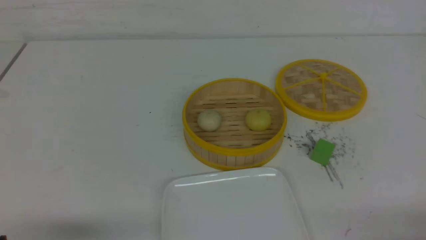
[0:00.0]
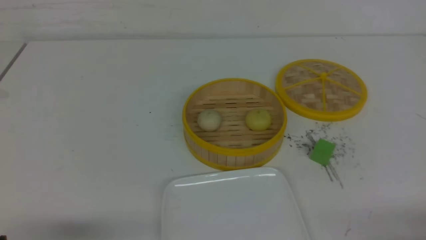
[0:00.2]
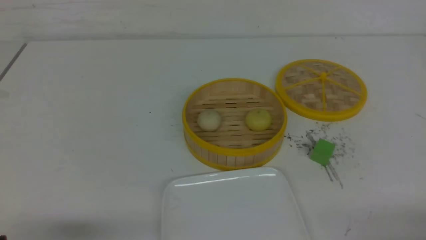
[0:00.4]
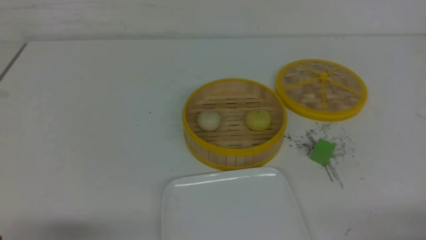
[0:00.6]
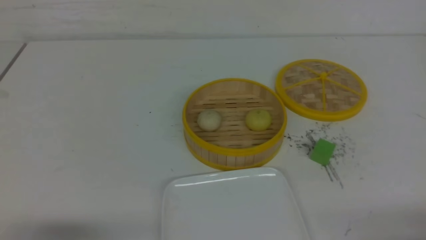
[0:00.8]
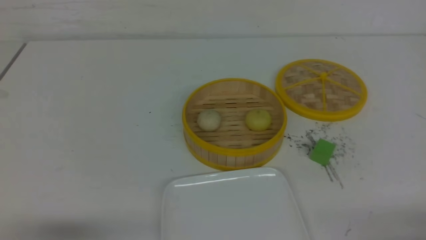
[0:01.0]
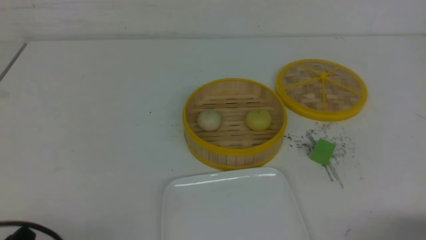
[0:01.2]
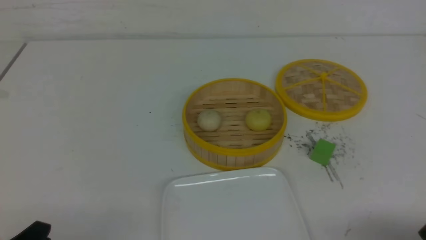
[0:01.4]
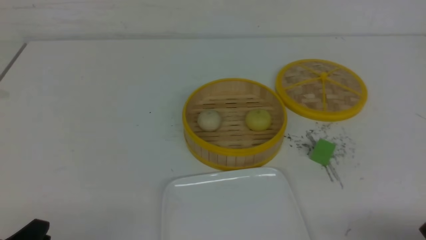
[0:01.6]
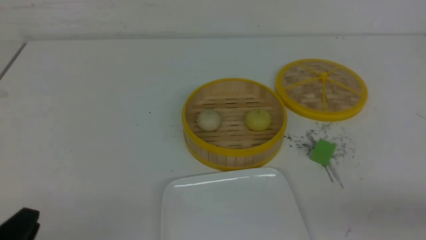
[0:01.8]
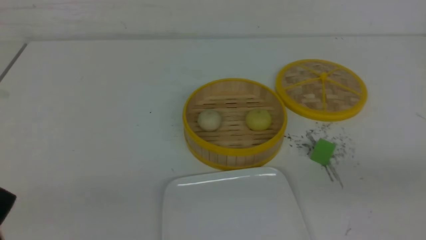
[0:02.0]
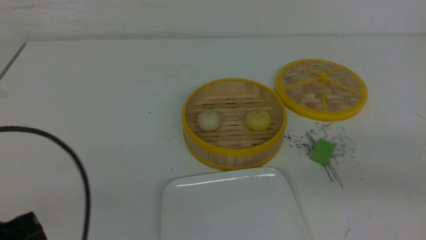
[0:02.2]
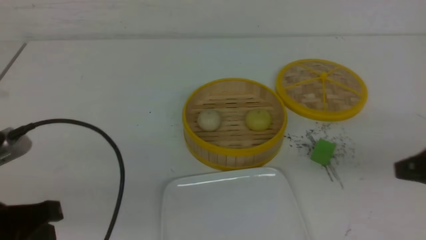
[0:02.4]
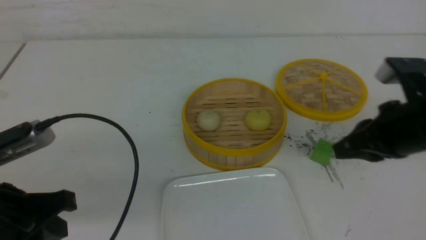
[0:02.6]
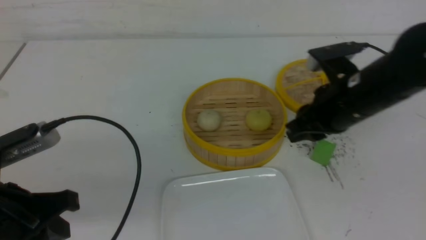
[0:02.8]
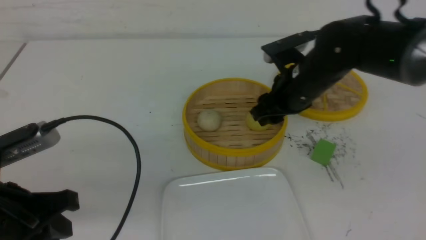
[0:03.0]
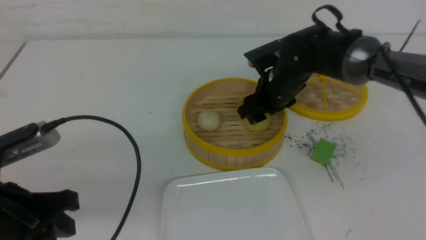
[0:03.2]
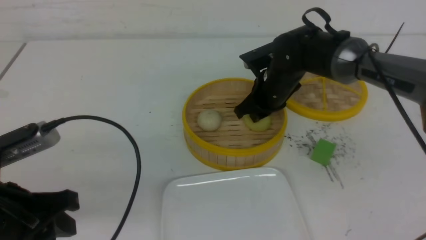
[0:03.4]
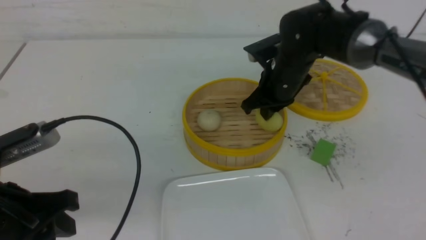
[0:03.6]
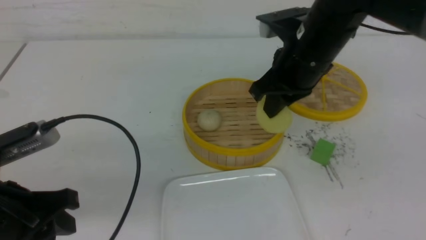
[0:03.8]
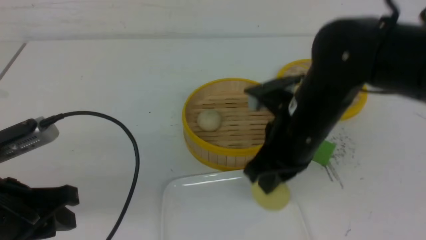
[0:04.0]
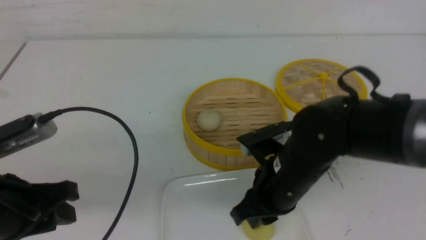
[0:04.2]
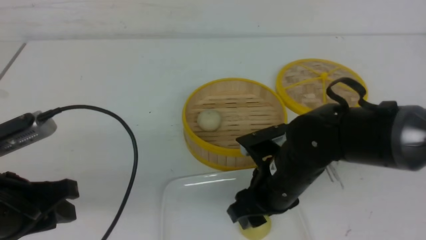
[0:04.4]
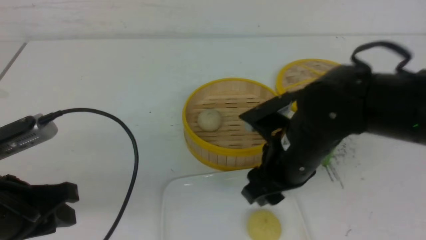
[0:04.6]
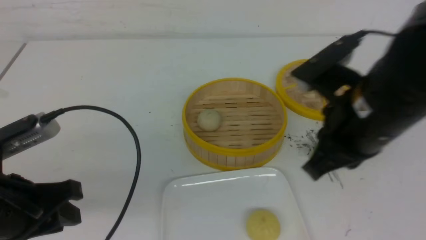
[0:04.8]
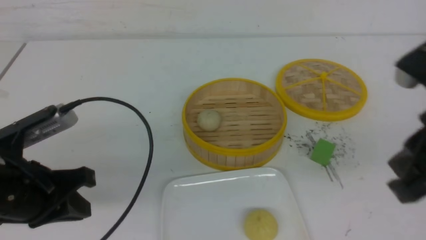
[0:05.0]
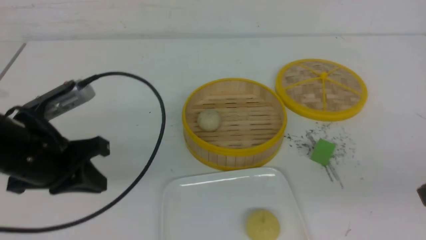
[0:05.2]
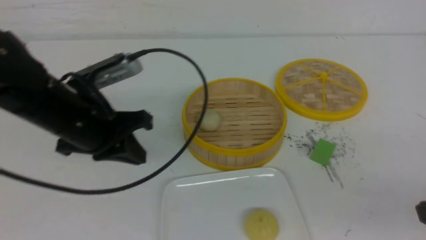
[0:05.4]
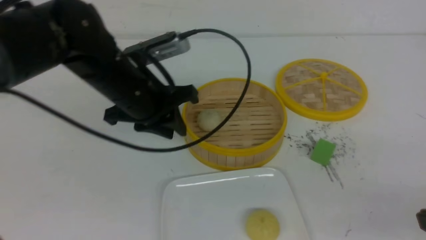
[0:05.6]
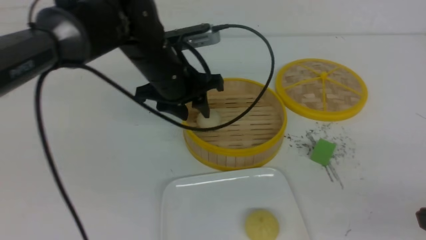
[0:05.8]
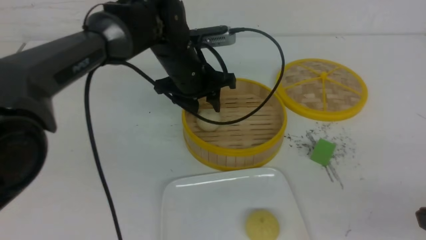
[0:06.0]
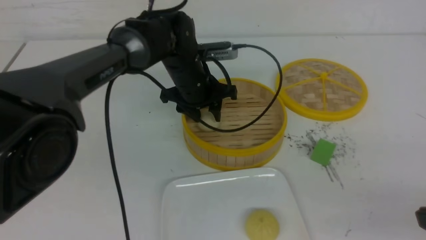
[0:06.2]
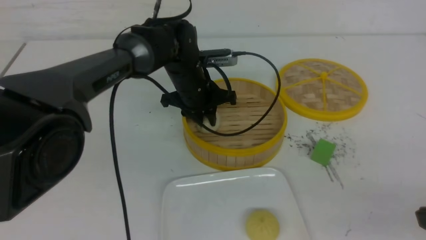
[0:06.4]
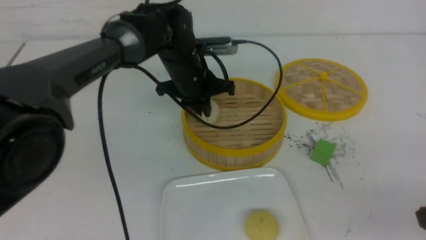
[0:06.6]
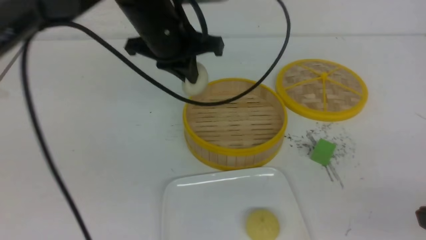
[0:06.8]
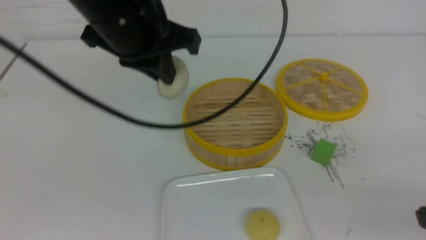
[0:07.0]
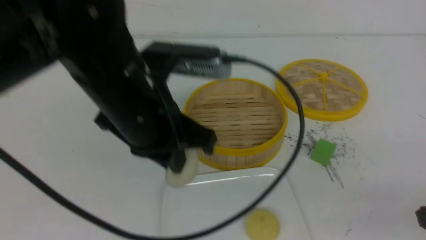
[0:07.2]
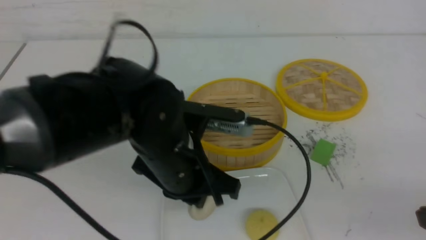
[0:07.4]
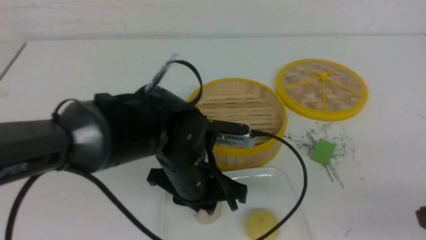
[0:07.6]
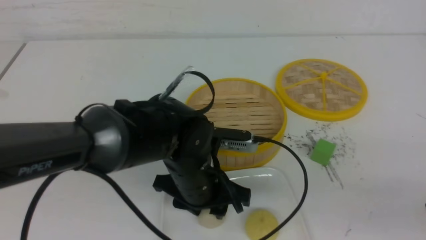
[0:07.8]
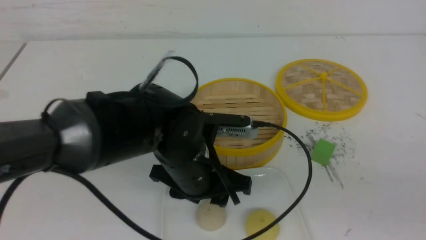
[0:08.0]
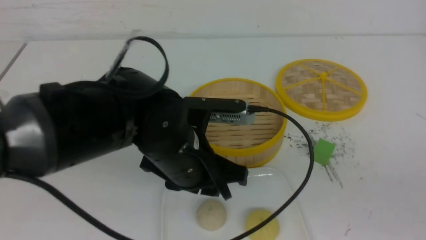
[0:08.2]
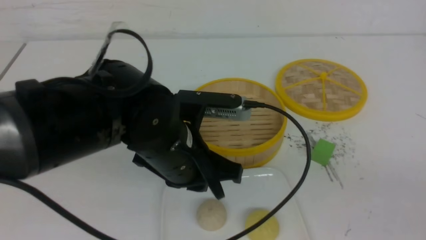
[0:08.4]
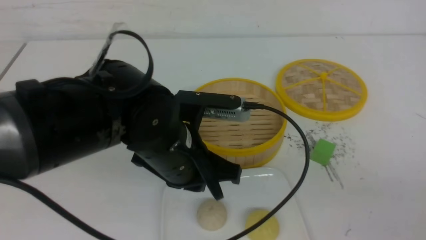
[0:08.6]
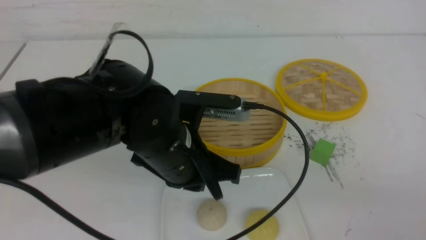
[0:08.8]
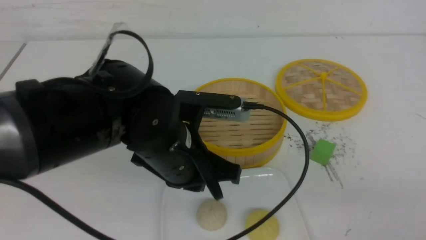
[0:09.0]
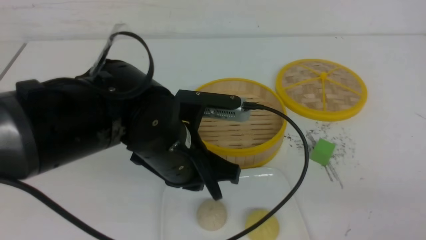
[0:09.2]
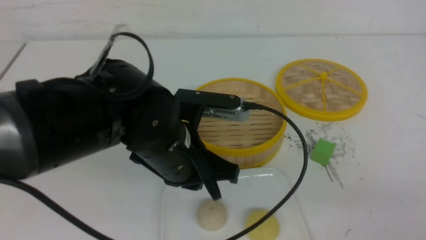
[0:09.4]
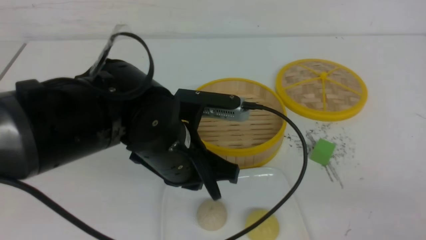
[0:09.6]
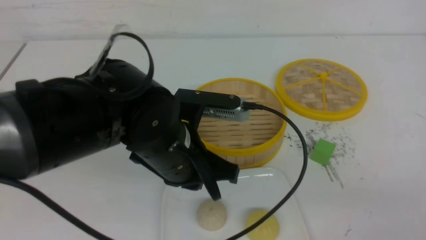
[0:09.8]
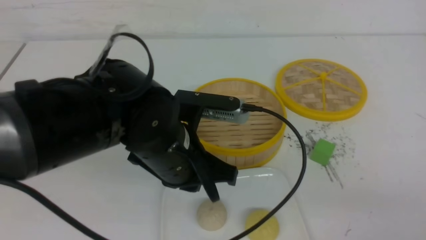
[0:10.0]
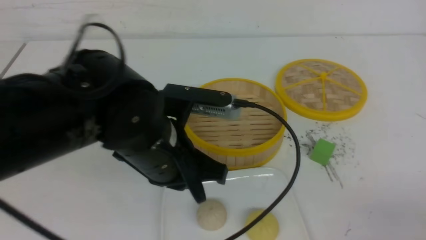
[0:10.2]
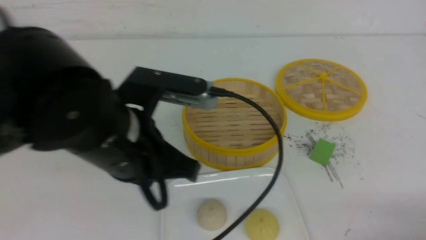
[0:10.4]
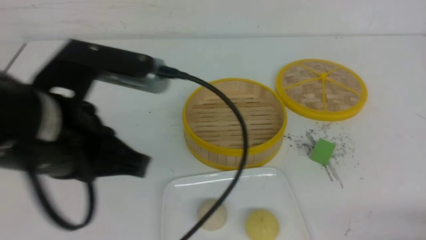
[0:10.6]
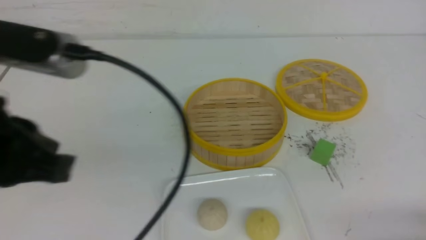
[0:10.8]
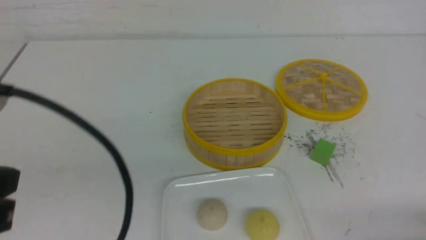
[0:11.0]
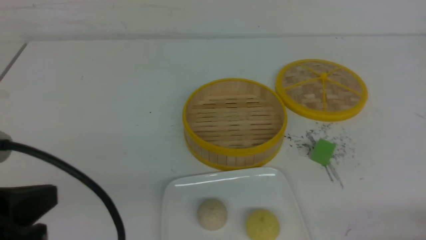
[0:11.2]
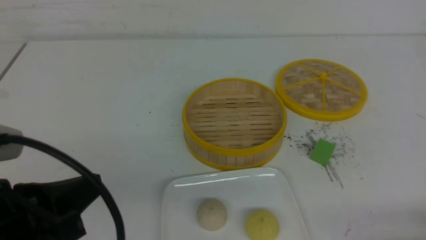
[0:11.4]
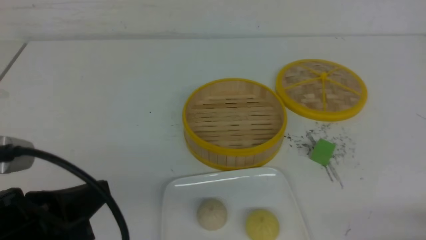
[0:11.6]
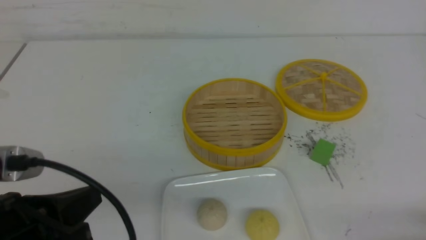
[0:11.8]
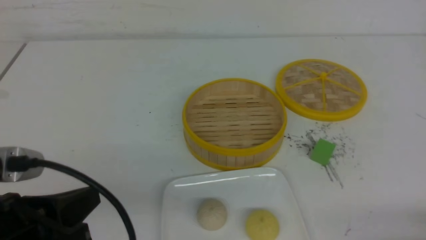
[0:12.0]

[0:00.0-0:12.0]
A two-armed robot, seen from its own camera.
Step, 0:00.0 to 0:03.4: use the right arm to grab the steamed stuffed bun that is closest to it.
Step, 0:03.6 to 0:04.6: use the right arm to put the steamed stuffed bun into the plate.
Step, 0:04.8 to 0:06.4: use the left arm to grab the steamed stuffed bun that is closest to it.
Step, 0:06.6 to 0:07.8: use the left arm to put the steamed stuffed bun into the plate.
0:01.6 to 0:03.0: The right gripper moves forward and to the left, some 35 cm, and opens its fingers. The left gripper heads forward and upward, covering roughly 10 cm, and closes, then opens again.
0:03.0 to 0:04.4: The right gripper is displaced backward by about 15 cm, and closes, then reopens.
0:04.4 to 0:06.0: The right gripper travels to the right and backward by about 25 cm, and closes up. The left gripper shifts about 30 cm forward and to the right, and closes and opens again.
0:06.0 to 0:07.6: The left gripper shifts about 15 cm backward, and closes its fingers.
0:07.6 to 0:09.0: The left gripper changes place by approximately 5 cm, and closes.
0:09.0 to 0:10.4: The left gripper heads upward and to the left, covering approximately 10 cm; the right gripper goes roughly 10 cm downward.
0:10.4 to 0:12.0: The left gripper goes about 15 cm to the left, backward and downward.

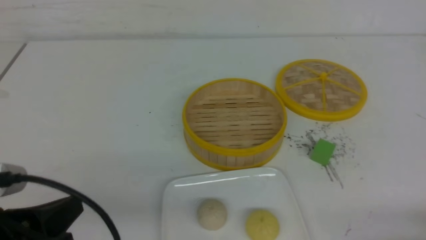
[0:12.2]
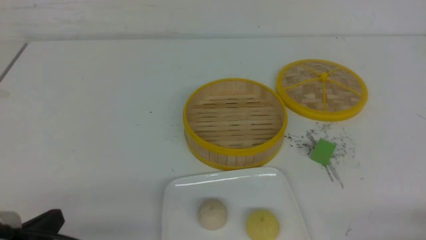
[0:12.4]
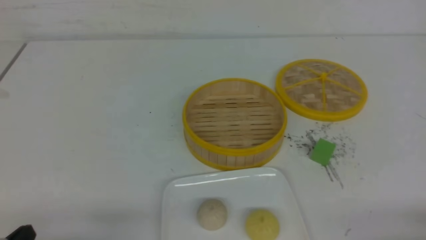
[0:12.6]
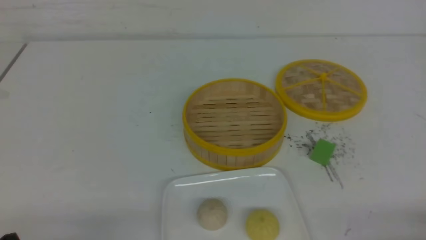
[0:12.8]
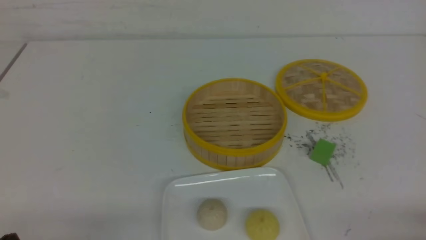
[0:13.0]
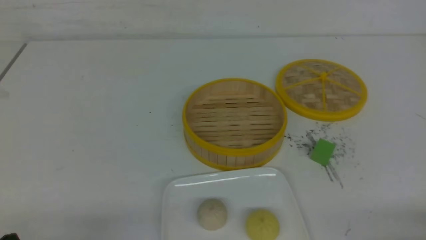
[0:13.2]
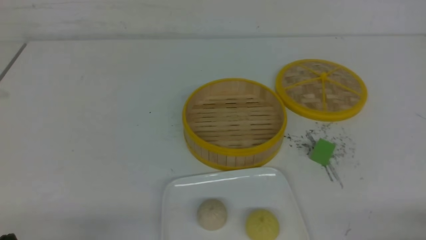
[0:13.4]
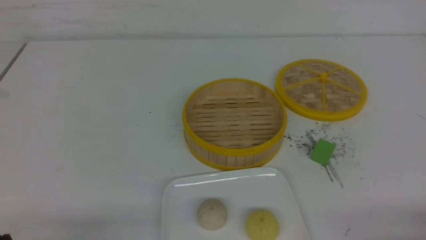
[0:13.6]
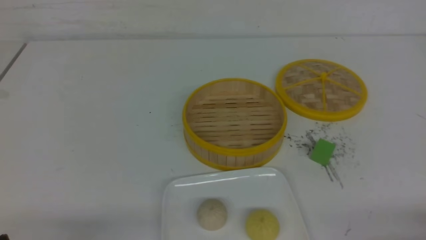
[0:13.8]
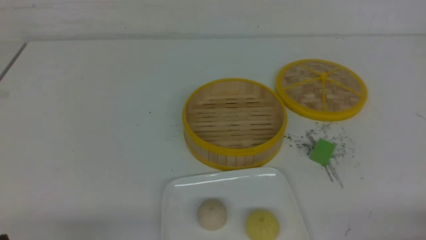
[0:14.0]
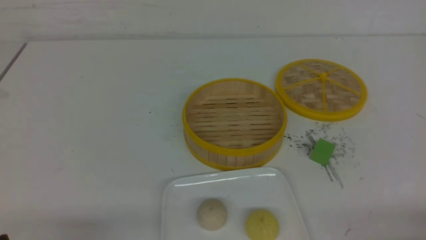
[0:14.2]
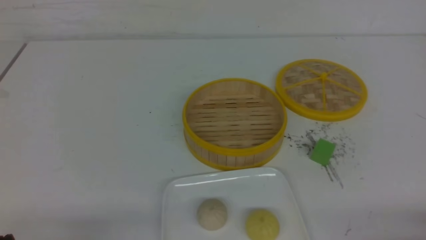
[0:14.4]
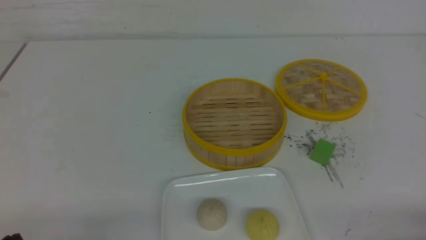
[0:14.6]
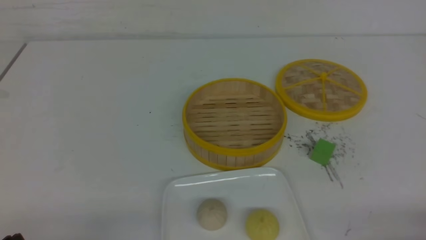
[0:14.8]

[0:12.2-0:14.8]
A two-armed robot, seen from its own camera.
0:12.2 to 0:13.4: The left gripper moves downward, approximately 10 cm.

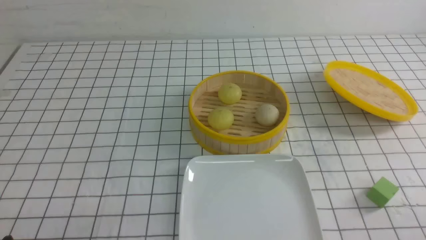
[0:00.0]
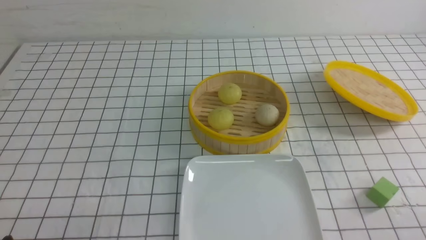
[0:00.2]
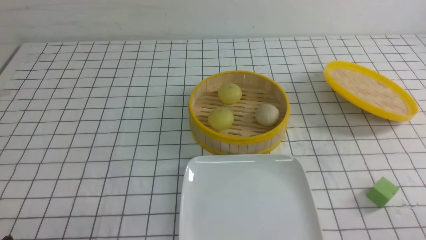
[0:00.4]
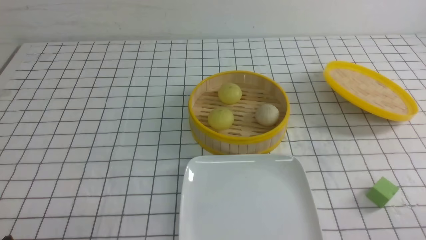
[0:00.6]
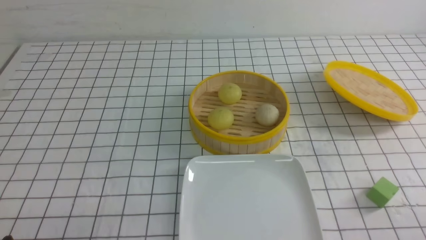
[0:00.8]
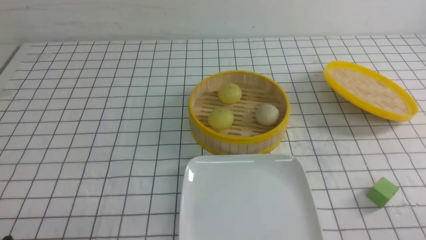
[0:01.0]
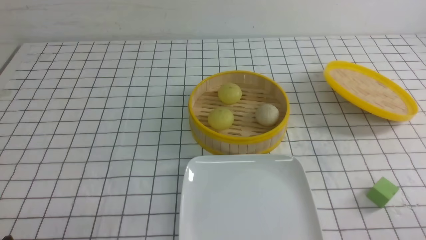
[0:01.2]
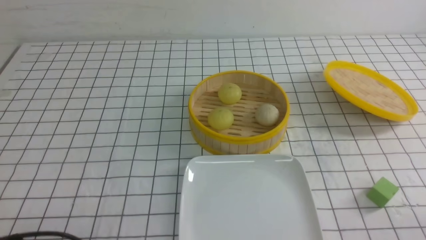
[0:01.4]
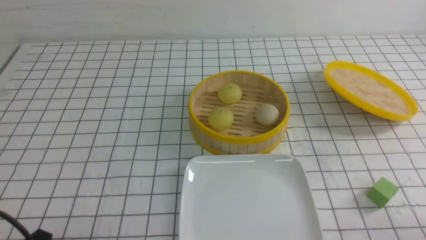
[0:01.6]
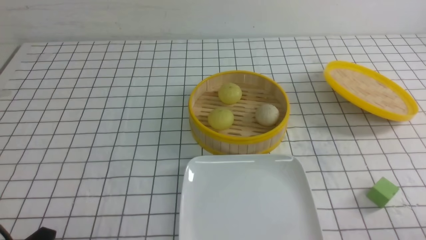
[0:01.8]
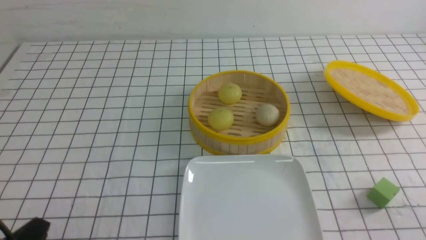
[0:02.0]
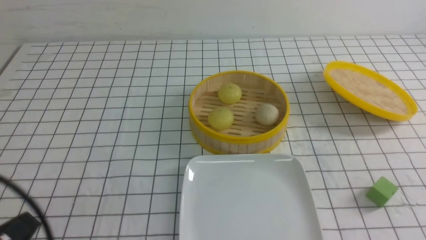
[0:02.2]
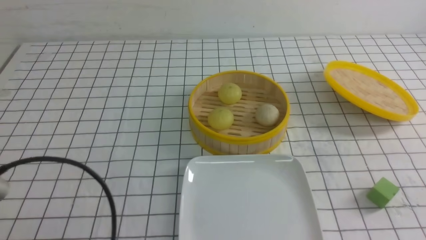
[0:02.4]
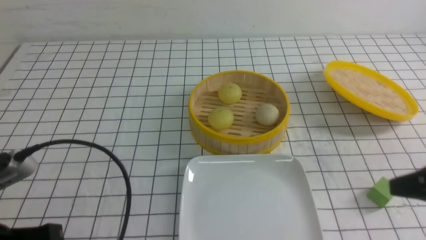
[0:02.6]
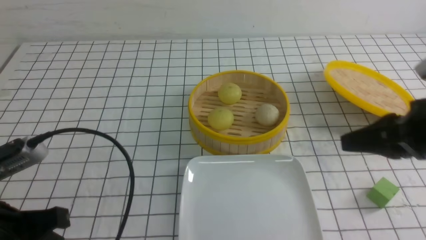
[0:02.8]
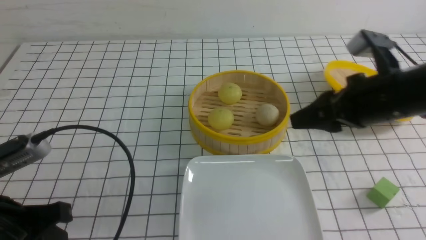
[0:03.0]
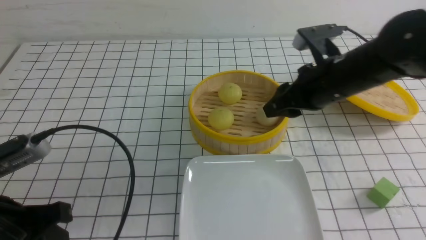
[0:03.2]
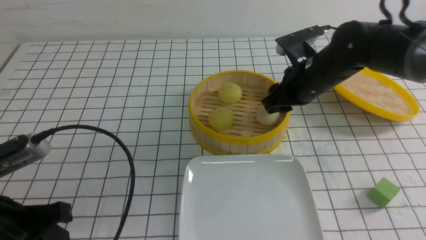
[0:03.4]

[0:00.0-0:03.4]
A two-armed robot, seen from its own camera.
0:01.6 to 0:03.4: The right gripper is displaced forward and to the left by approximately 35 cm, and closes and opens again, while the left gripper moves forward and upward, some 10 cm, and closes, then reopens.
